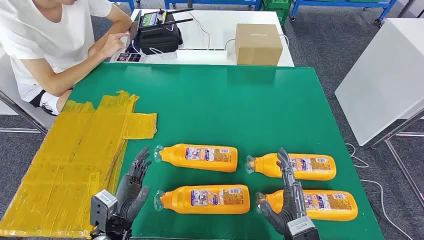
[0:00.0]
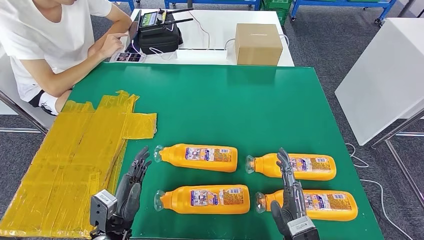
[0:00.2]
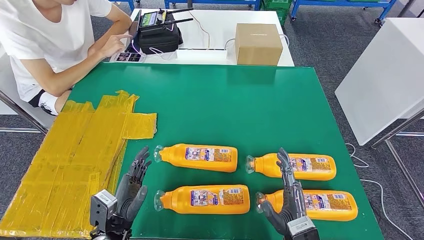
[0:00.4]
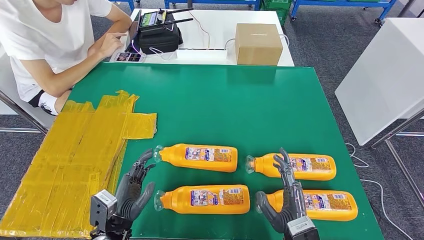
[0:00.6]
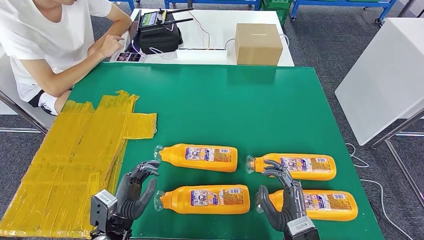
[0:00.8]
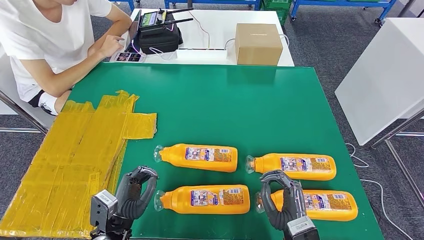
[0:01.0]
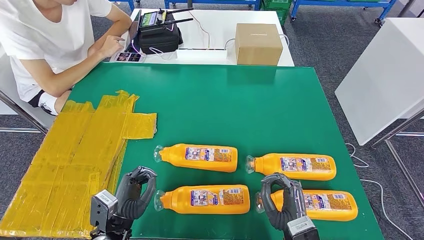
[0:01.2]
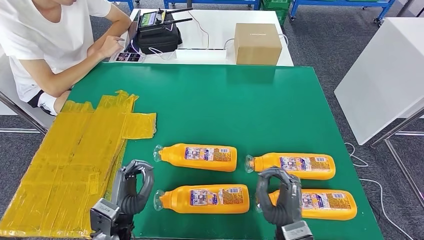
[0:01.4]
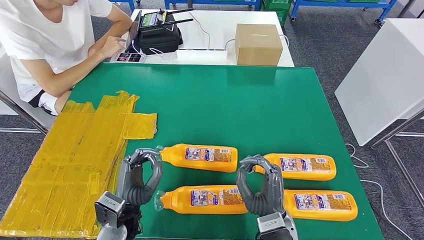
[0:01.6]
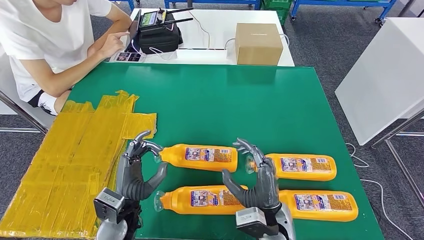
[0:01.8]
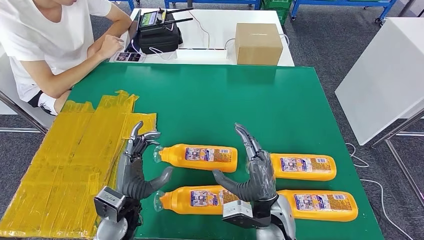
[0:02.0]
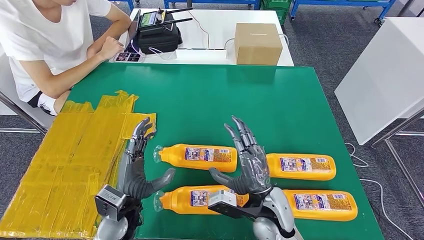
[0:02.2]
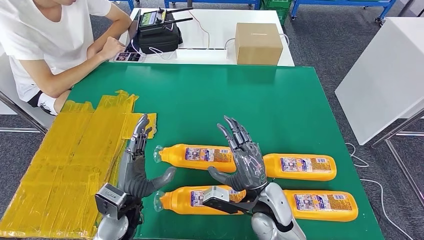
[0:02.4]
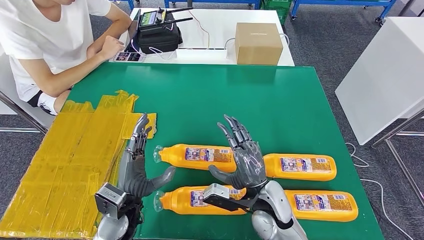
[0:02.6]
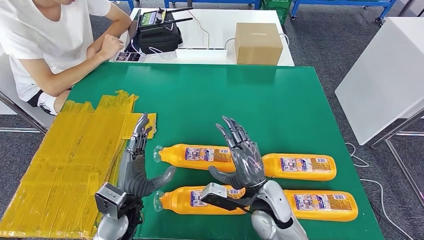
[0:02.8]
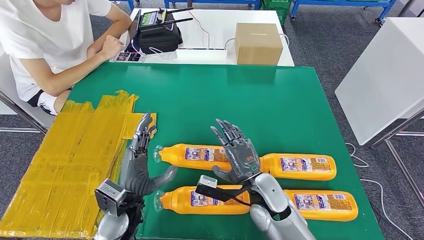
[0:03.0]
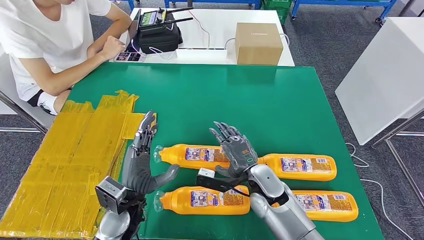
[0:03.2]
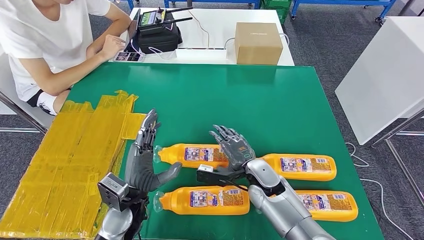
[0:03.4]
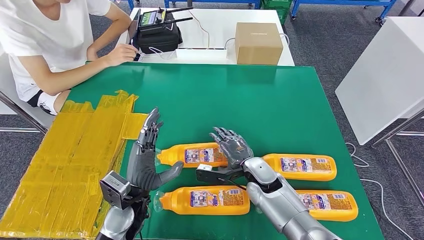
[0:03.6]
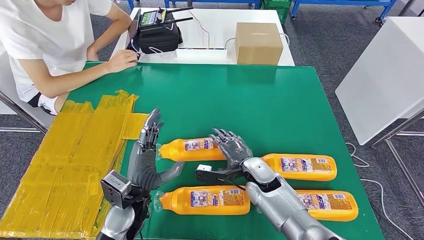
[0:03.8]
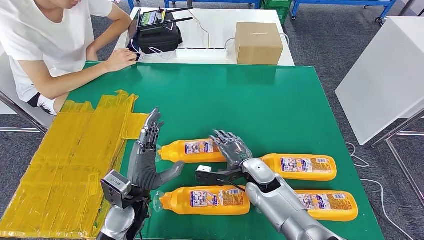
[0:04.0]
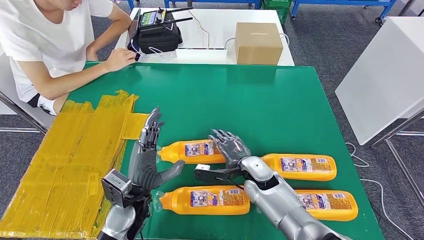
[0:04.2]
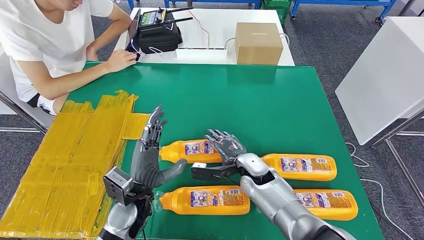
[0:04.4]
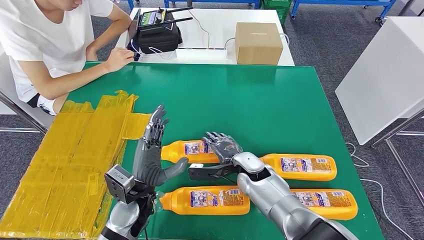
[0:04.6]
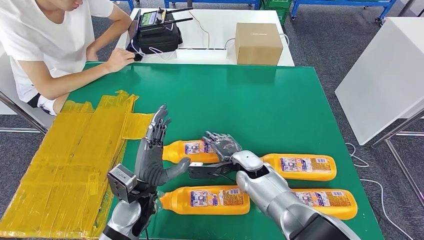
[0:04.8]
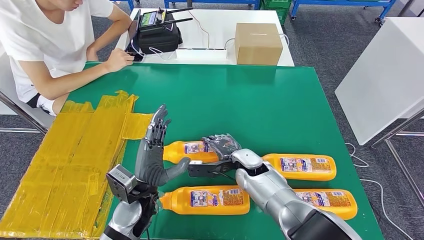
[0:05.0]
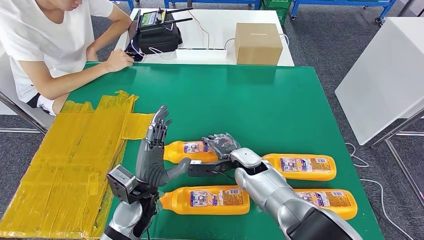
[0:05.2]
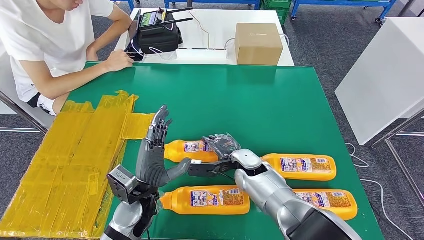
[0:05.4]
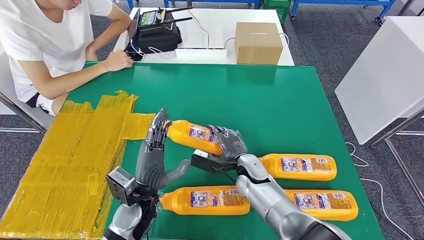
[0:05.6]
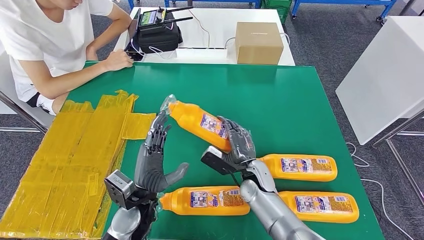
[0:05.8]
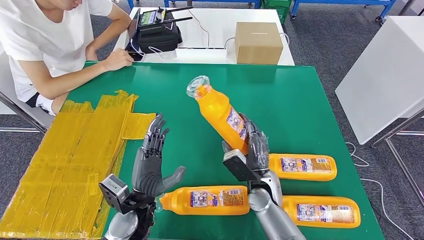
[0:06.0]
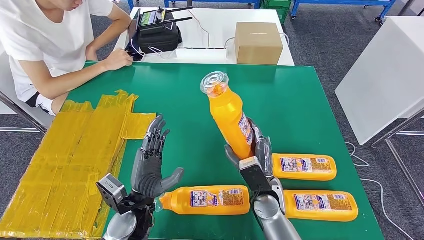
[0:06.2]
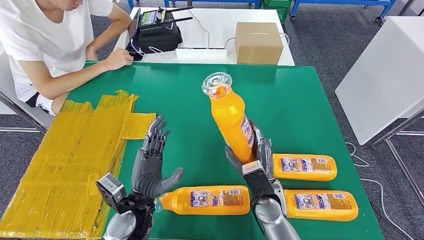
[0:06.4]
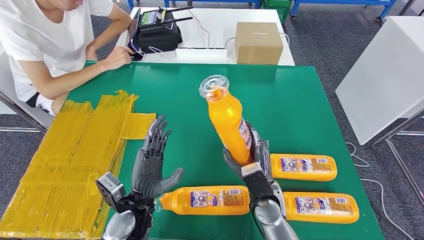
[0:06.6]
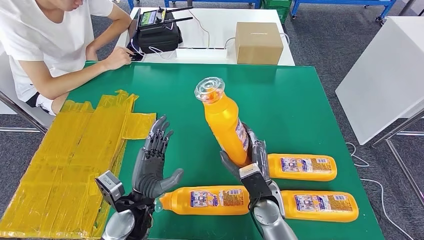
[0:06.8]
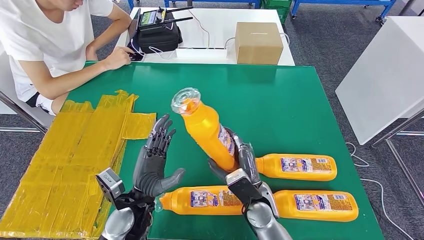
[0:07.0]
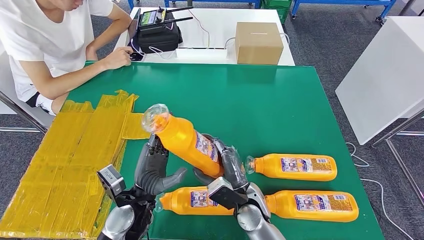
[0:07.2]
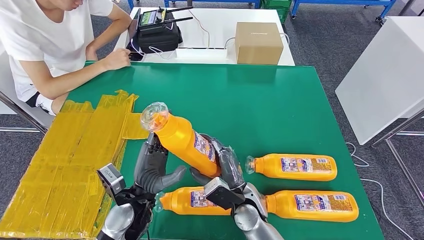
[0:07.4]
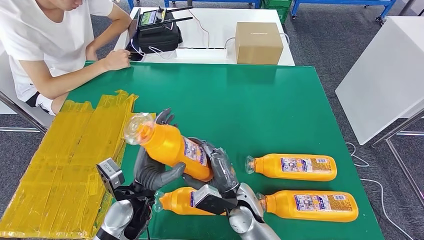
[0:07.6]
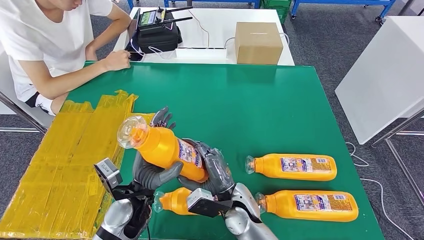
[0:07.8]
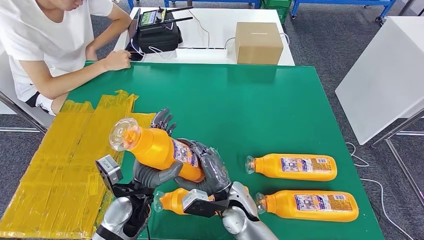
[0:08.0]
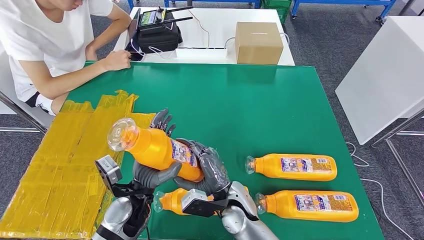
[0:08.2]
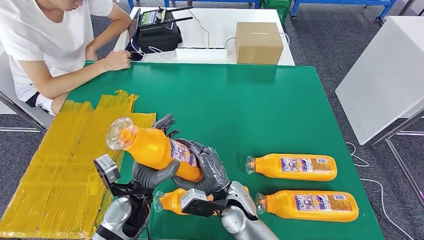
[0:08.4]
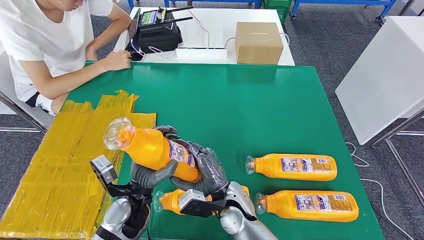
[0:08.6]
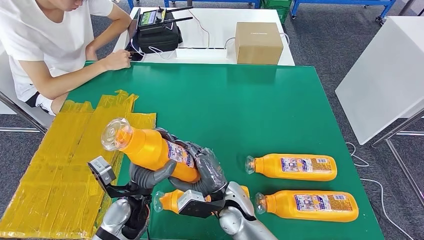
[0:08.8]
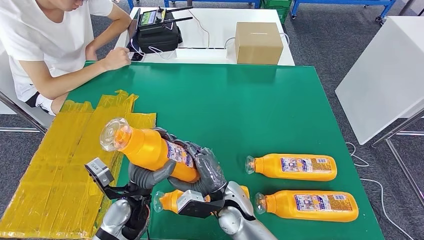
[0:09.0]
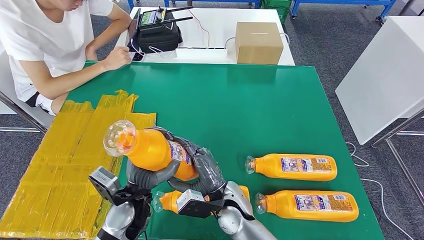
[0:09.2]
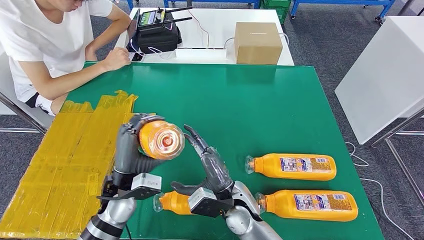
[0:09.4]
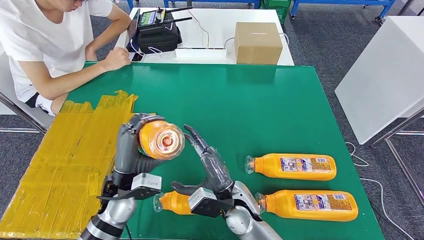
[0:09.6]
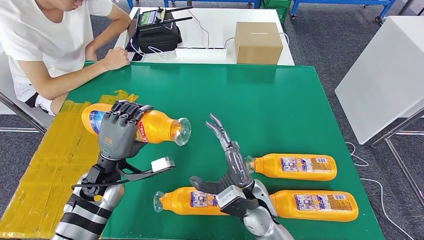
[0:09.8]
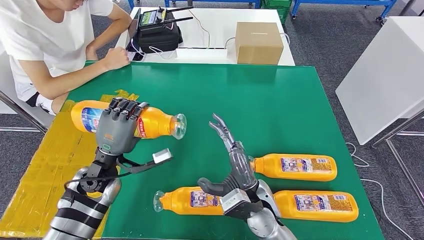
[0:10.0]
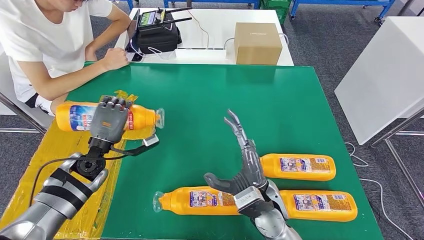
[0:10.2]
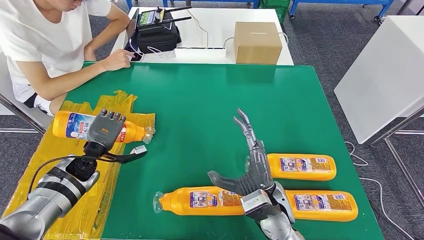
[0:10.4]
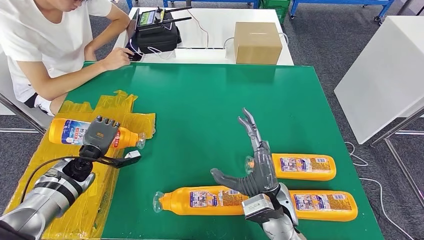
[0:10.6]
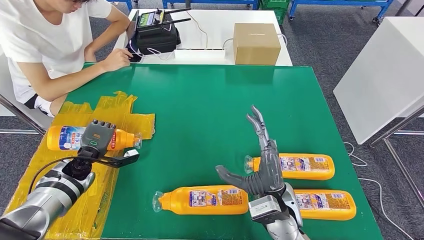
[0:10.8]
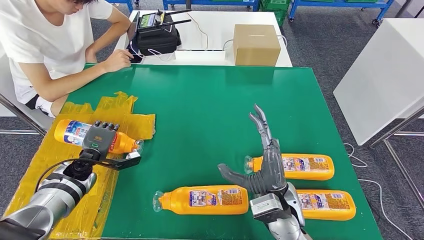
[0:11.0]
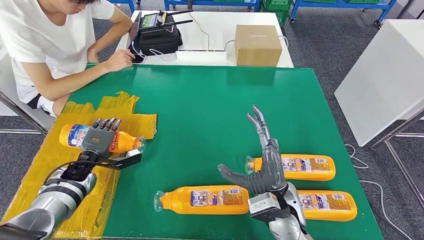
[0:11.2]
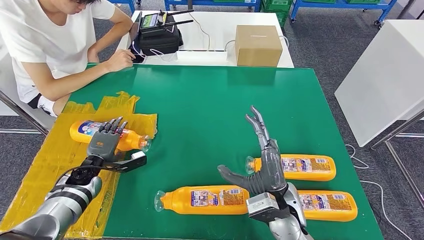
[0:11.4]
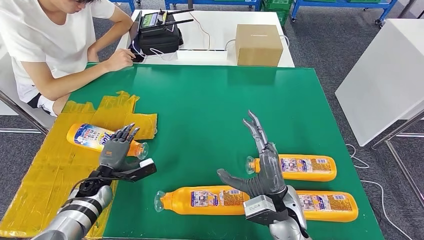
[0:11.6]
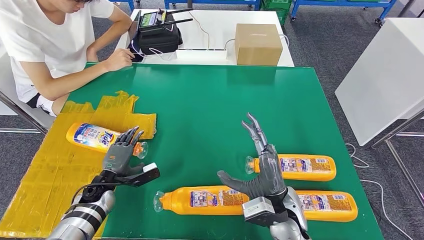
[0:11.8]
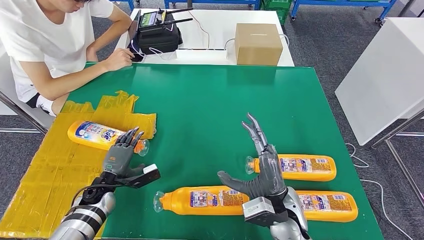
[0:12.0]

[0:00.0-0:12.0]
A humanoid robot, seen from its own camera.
Step, 0:00.0 to 0:06.8: Take the fast-moving consumer goods bottle from the table.
Step, 0:07.0 to 0:10.8: Flip the fast-moving consumer goods bottle to the front side.
0:01.6 to 0:03.0: The right hand moves forward, roughly 10 cm.
0:03.0 to 0:04.4: The right hand heads forward, covering approximately 10 cm.
0:04.4 to 0:06.0: The right hand moves about 5 cm.
0:06.0 to 0:07.6: The right hand goes some 5 cm to the left.
0:07.6 to 0:09.0: There are only small adjustments of the hands.

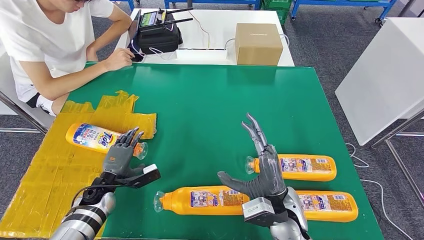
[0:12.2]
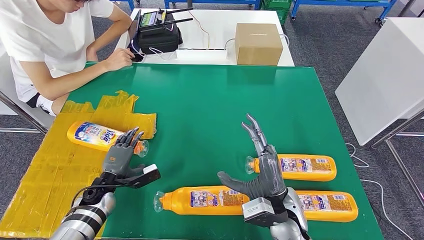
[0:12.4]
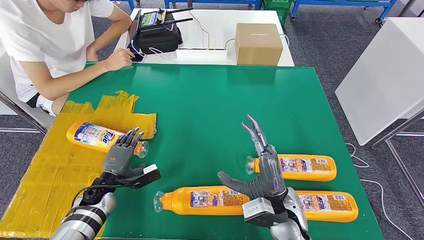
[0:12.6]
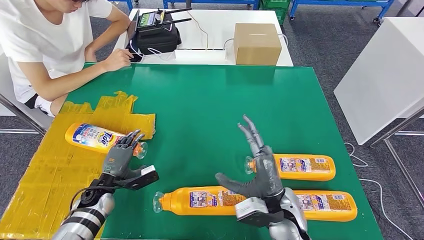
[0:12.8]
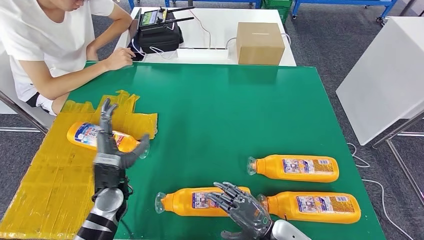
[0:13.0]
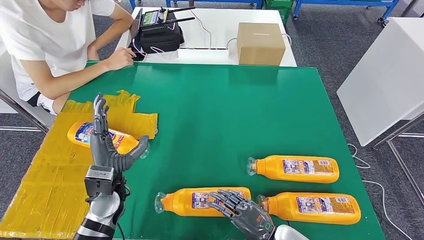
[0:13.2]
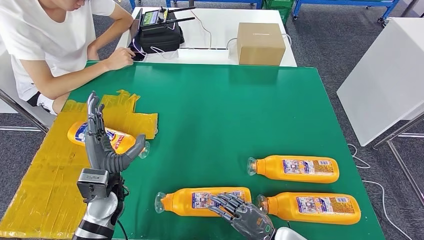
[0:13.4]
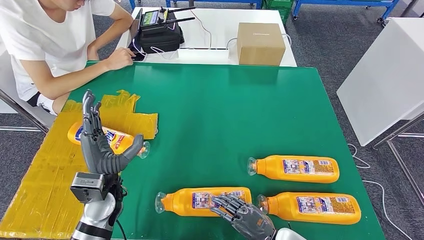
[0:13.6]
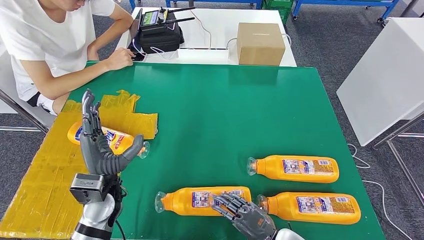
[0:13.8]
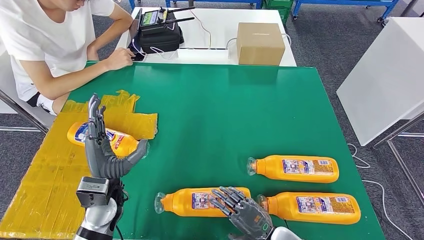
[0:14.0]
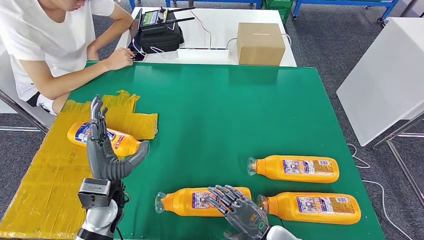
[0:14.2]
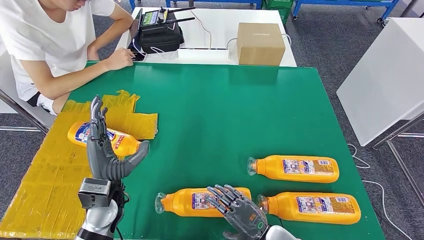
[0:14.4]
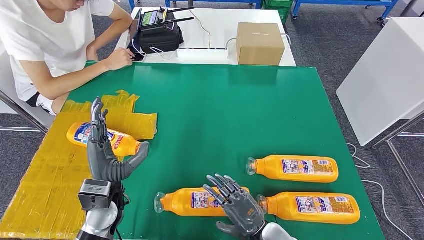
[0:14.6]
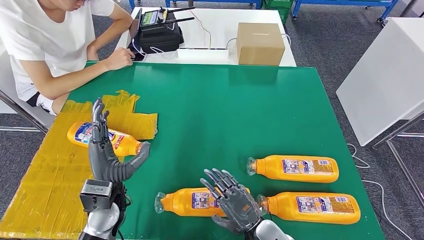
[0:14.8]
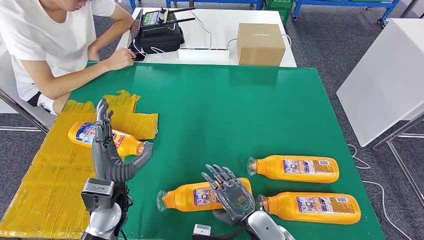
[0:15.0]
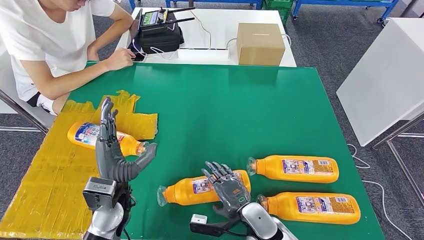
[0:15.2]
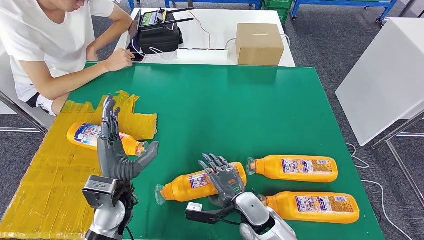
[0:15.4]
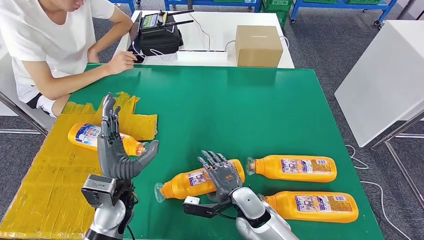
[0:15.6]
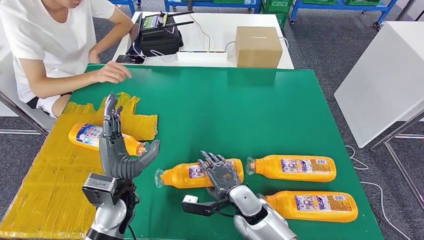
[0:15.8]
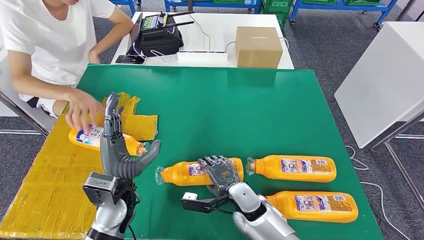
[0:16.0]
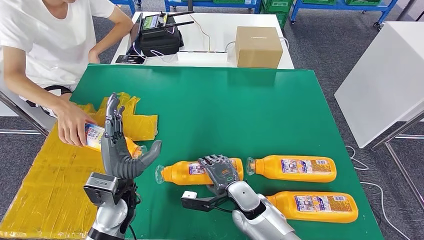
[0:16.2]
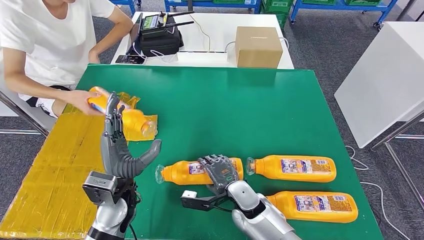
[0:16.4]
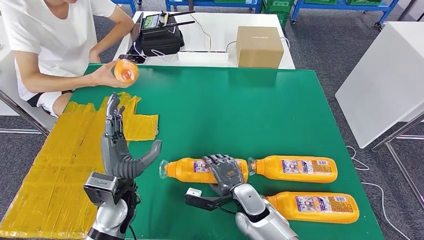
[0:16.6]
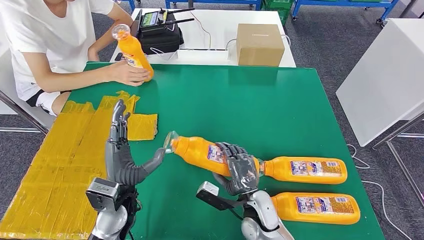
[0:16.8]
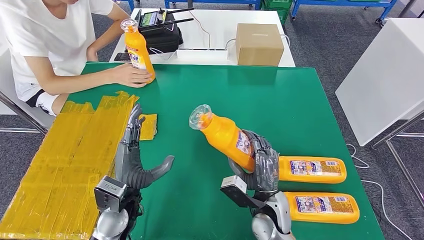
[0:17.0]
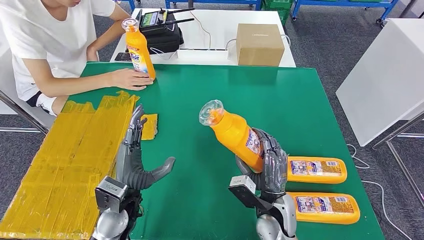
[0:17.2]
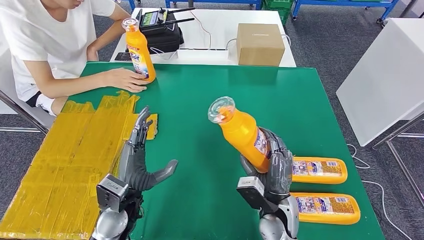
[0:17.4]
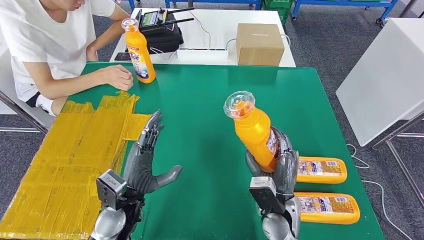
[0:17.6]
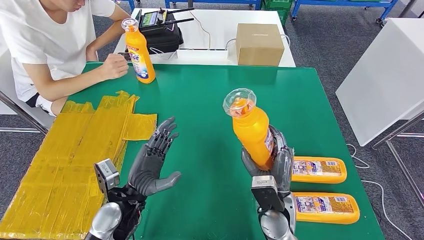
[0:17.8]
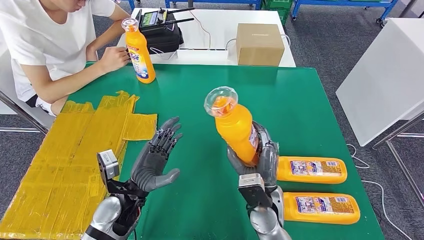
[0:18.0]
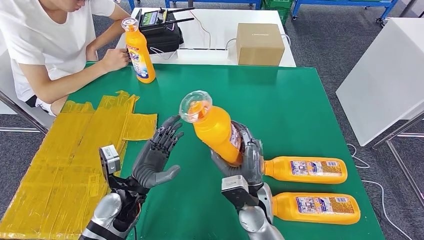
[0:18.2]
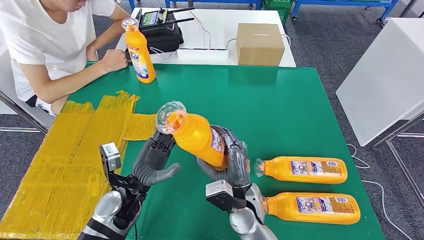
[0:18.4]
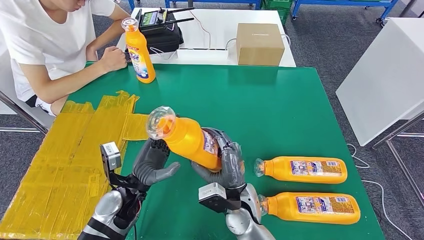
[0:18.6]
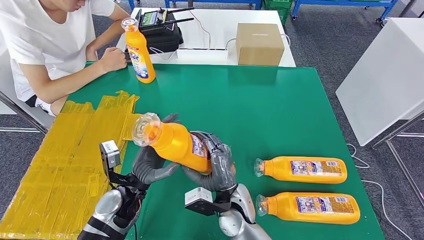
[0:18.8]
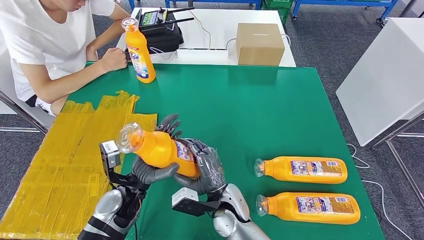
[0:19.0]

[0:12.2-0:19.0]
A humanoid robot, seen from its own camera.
Step, 0:12.2 to 0:18.0: Pick up the fast-moving consumer goods bottle from the table.
0:12.2 to 0:13.6: The right hand moves downward and backward, about 15 cm. The left hand shifts about 15 cm upward and to the right.
0:13.6 to 0:15.0: The right hand is displaced to the left by approximately 5 cm.
0:17.6 to 0:19.0: The right hand is displaced to the left by approximately 10 cm.
